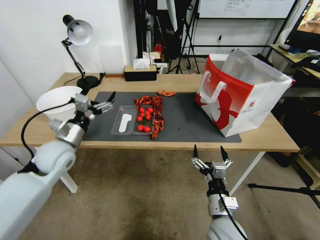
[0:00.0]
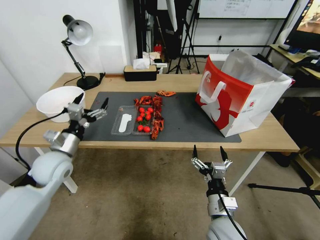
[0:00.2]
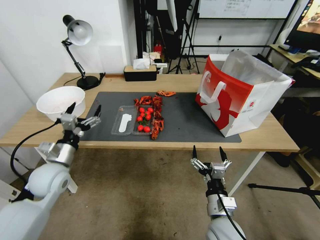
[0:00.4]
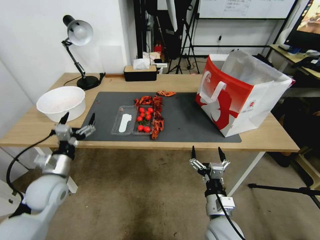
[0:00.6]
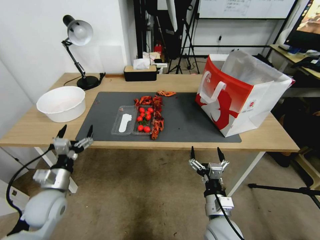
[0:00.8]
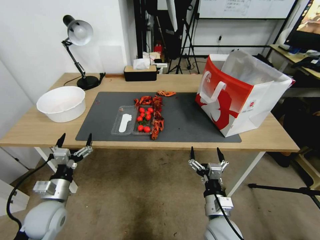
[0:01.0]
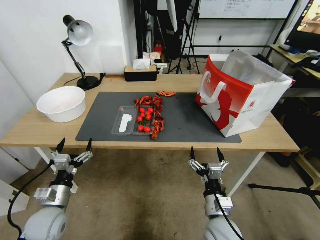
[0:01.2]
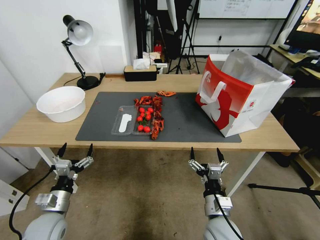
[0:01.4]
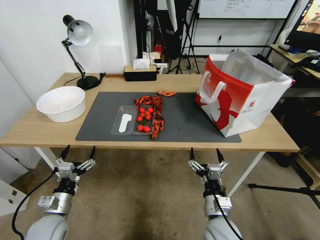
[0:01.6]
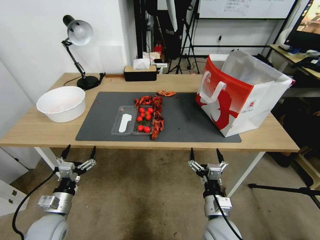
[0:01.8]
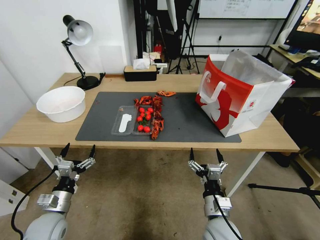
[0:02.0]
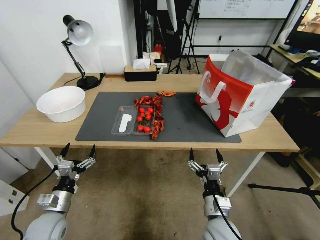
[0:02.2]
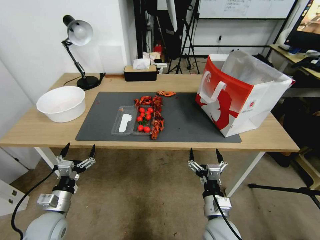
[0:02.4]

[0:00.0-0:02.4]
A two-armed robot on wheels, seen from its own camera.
0:00.0 to 0:01.2: The left gripper is displaced backward and downward by about 20 cm.
0:01.2 to 0:02.4: The grippers make only small movements.
